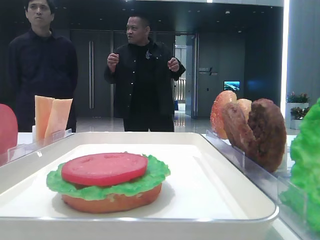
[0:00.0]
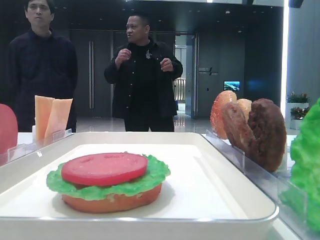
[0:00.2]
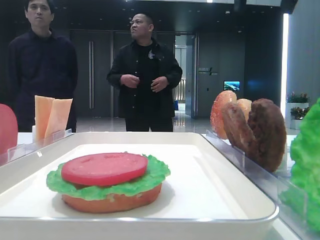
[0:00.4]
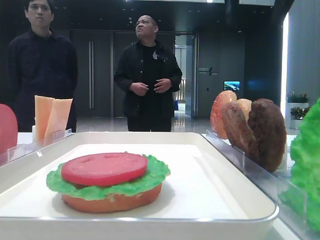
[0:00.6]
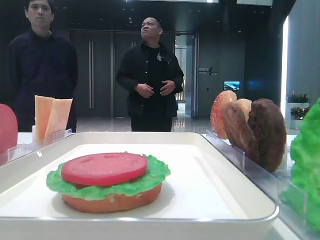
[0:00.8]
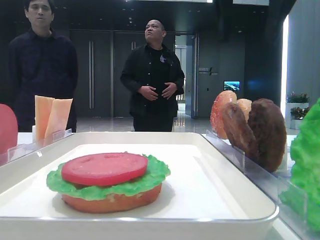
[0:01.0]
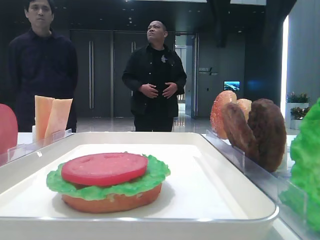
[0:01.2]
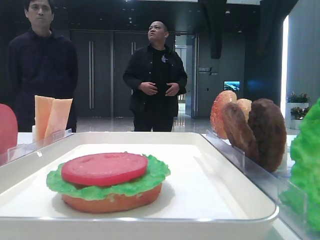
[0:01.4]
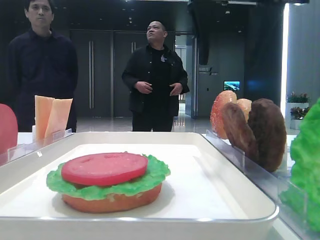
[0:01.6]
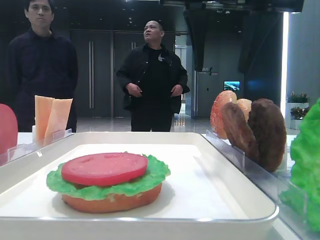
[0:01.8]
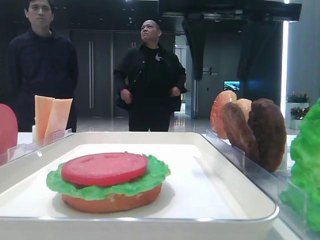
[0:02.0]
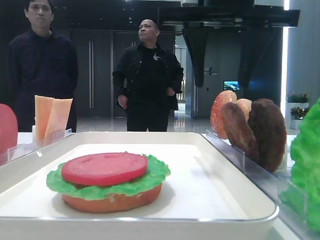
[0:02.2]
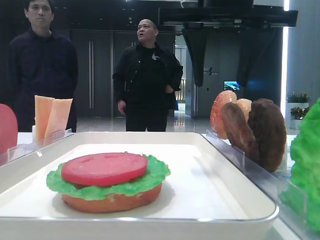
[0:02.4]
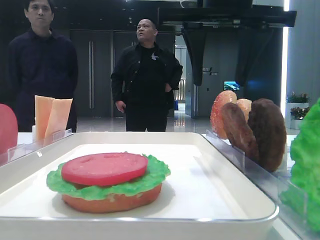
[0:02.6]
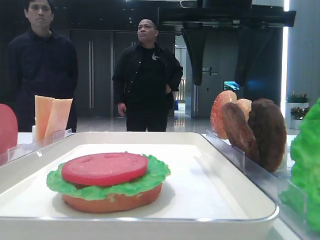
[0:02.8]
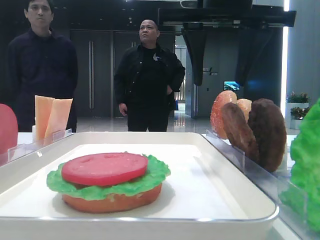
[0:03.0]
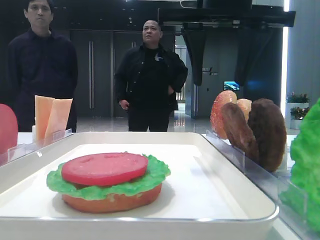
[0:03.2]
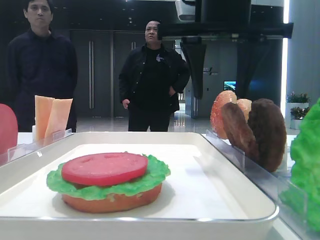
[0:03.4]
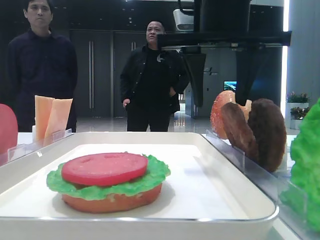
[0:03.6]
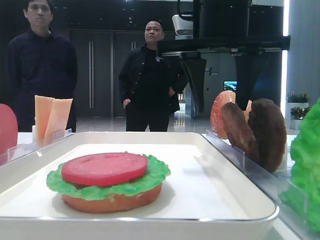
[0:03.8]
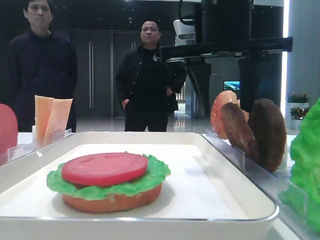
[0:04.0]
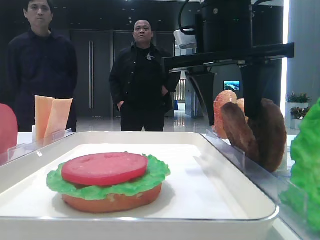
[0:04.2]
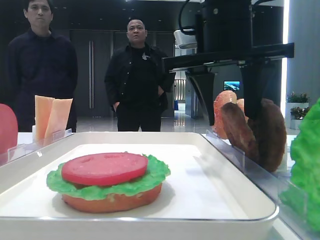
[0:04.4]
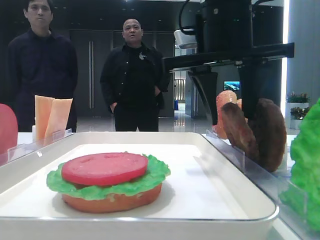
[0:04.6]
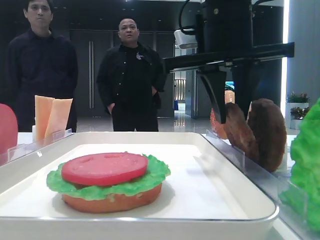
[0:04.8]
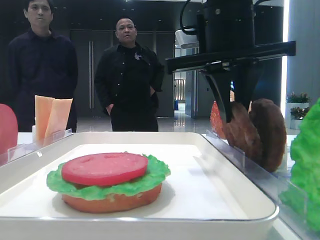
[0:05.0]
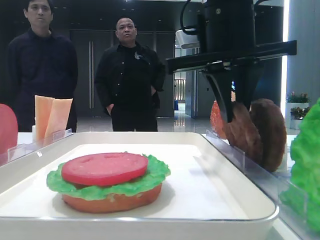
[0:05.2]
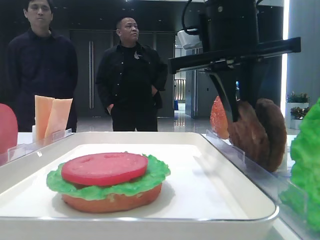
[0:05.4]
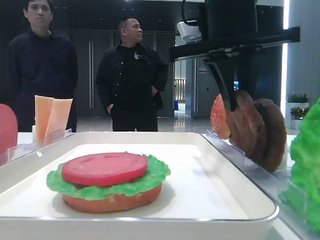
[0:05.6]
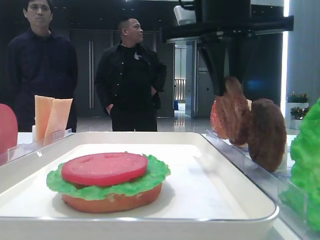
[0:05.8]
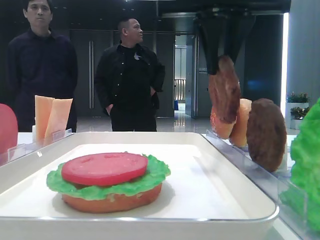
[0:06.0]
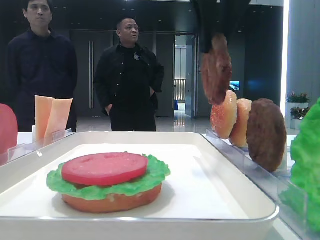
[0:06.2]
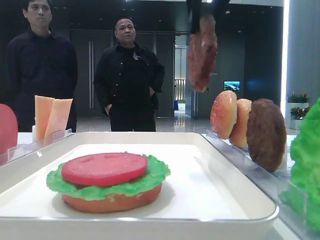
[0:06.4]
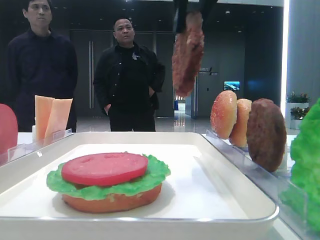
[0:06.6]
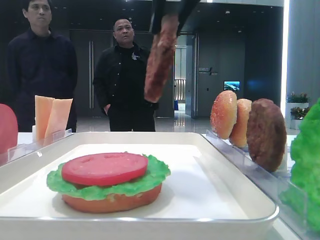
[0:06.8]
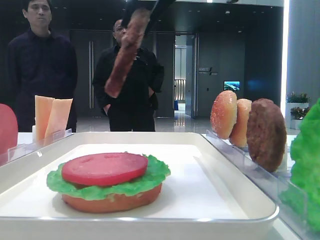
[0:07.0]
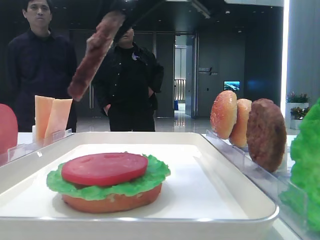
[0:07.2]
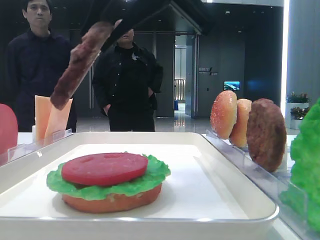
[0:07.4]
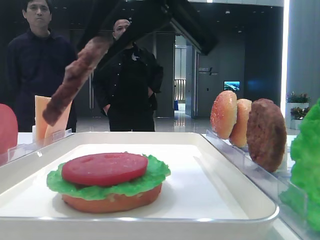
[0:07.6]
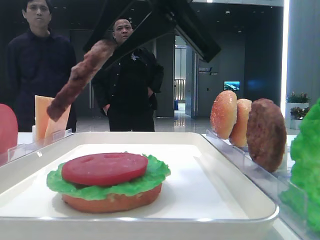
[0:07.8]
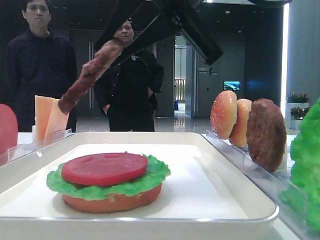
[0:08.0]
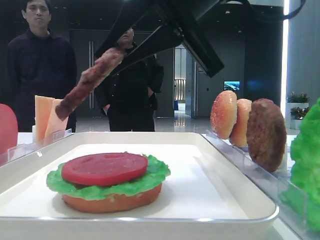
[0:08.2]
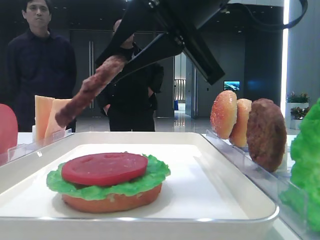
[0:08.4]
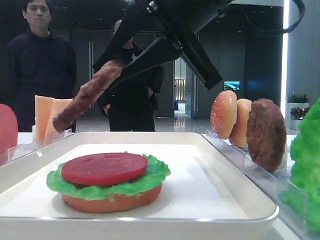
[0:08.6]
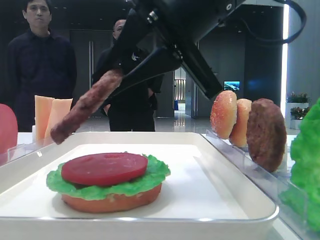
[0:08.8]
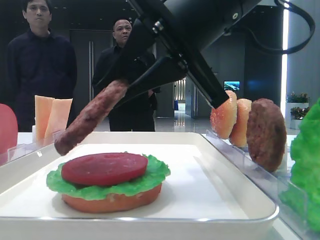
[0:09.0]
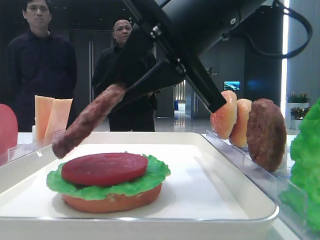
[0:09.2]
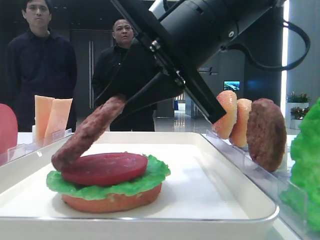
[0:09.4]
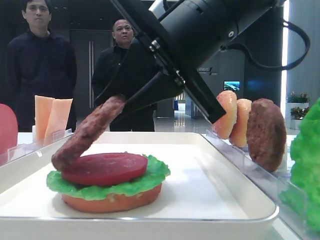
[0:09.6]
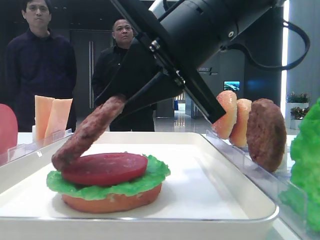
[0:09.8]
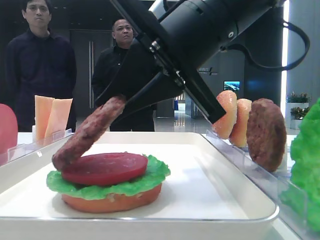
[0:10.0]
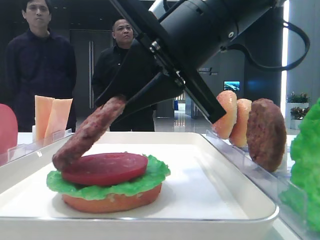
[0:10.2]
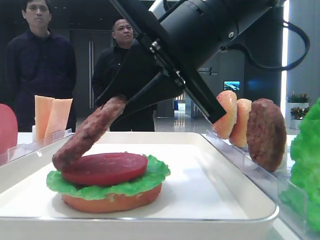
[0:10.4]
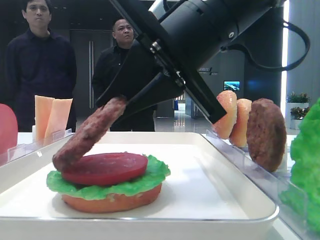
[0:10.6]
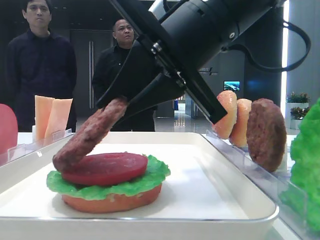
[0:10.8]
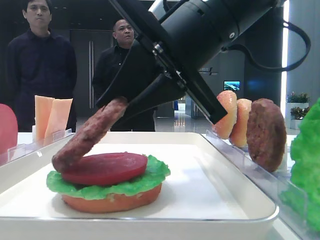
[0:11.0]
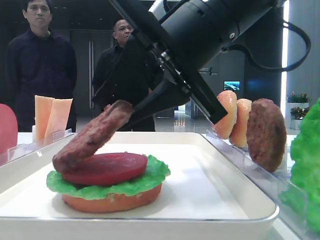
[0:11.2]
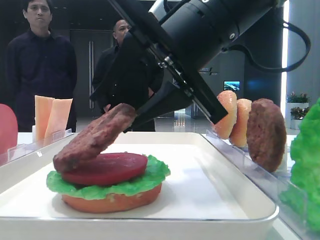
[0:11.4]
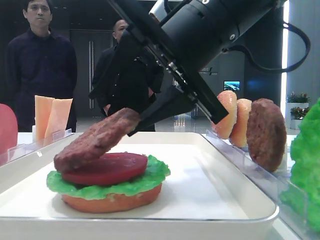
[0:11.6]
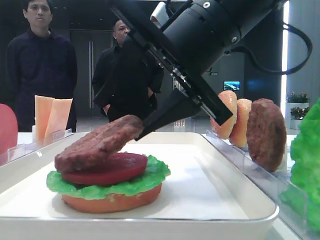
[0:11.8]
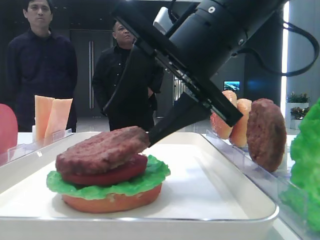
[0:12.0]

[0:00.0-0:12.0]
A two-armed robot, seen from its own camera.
Step, 0:00.0 to 0:04.8: Grab the patty with the right hand.
Step, 0:05.0 to 0:12.0: Place the patty on the tomato slice with the right hand.
0:00.0 to 0:01.6: The right gripper goes about 10 cm downward and to the left.
0:01.6 to 0:03.0: The grippers make only small movements.
0:03.0 to 0:04.4: The grippers move only a little.
0:04.4 to 0:06.0: The right gripper goes some 5 cm upward, and closes up.
0:06.0 to 0:07.6: The right gripper heads backward, covering about 10 cm.
0:07.6 to 0:09.0: The right gripper shifts by roughly 5 cm.
0:09.0 to 0:10.4: There are only small adjustments of the grippers.
0:10.4 to 0:12.0: The right gripper opens.

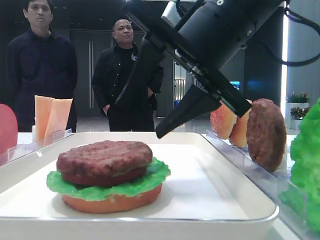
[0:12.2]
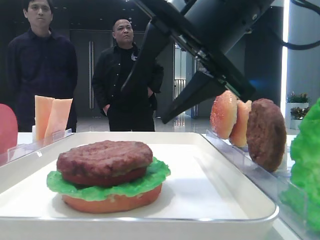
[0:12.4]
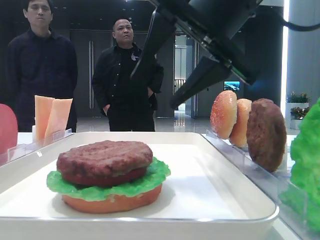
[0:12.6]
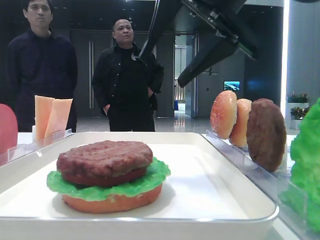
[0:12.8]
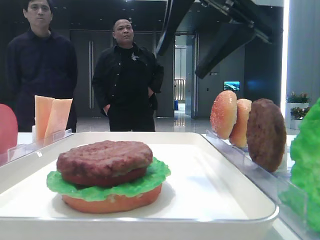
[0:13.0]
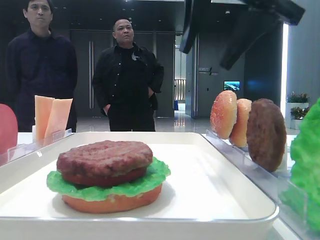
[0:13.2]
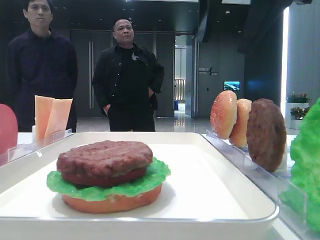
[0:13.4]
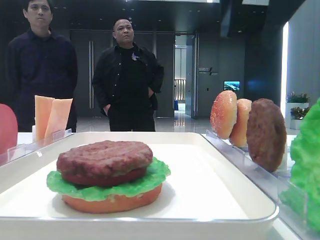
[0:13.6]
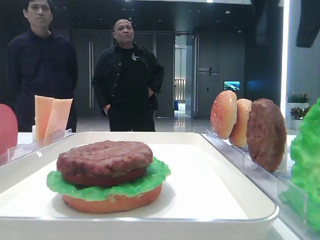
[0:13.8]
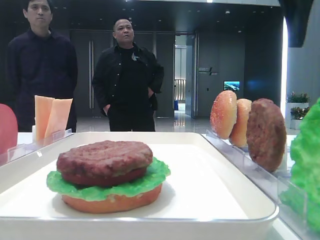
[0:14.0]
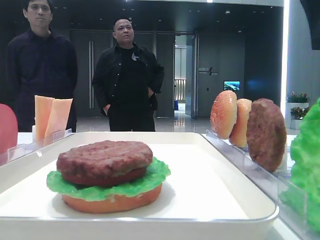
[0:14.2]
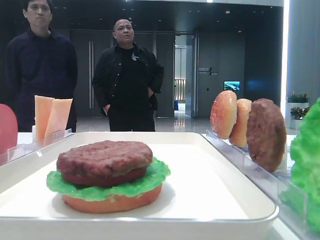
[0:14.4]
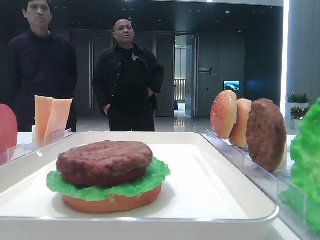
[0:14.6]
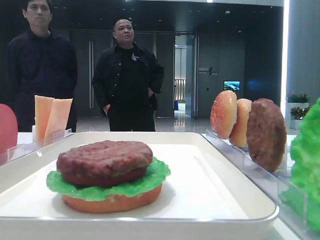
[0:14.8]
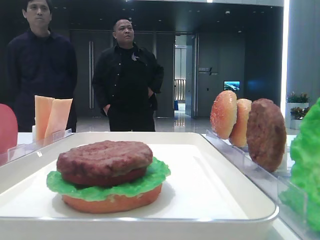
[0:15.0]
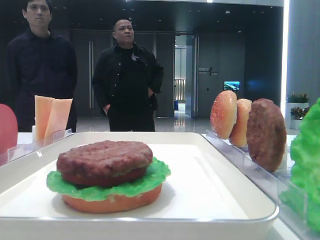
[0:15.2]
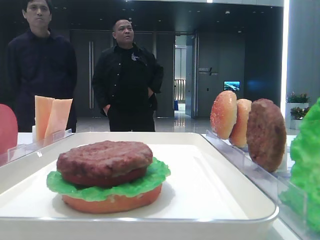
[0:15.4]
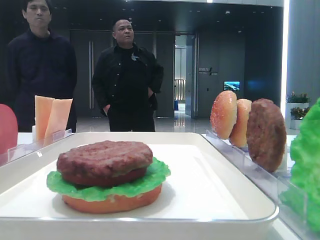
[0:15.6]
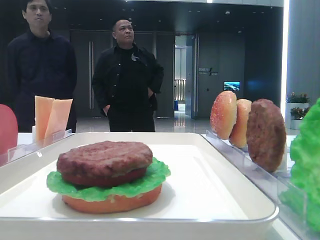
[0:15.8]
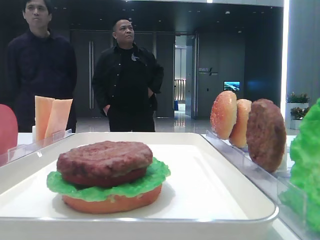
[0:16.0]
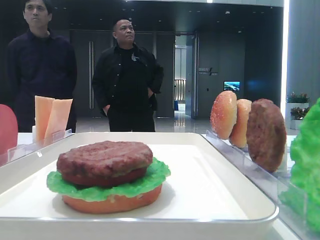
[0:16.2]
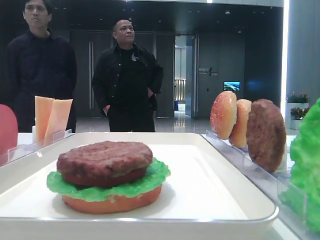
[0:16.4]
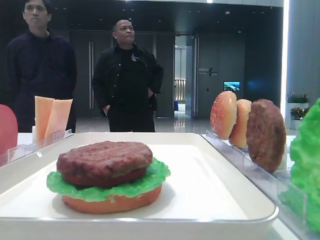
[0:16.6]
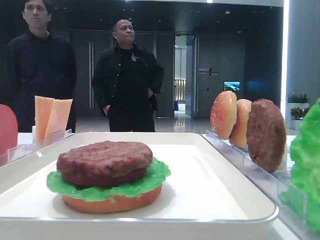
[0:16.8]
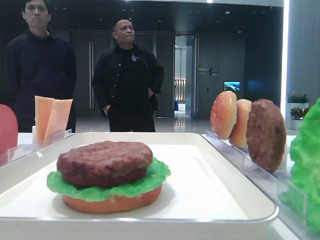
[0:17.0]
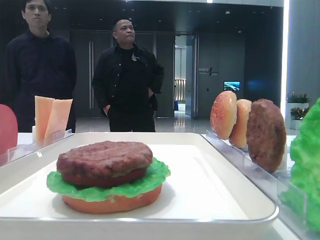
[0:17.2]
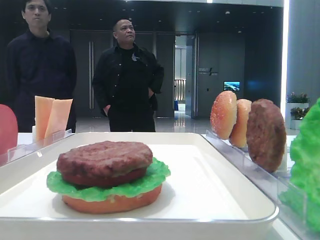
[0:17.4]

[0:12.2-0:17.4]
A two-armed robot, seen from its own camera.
0:12.2 to 0:14.0: The right gripper goes some 15 cm upward and to the right.
0:14.0 to 0:15.6: The right gripper travels backward and to the right by some 20 cm.

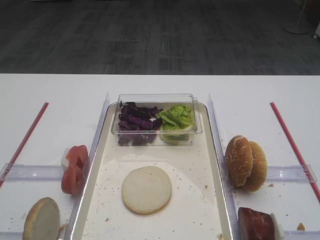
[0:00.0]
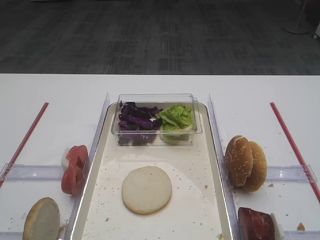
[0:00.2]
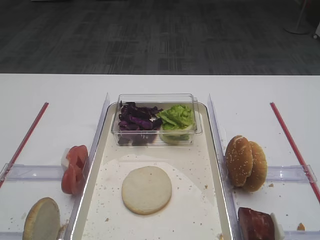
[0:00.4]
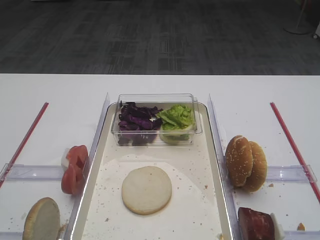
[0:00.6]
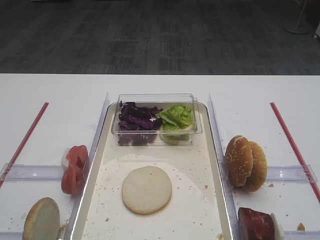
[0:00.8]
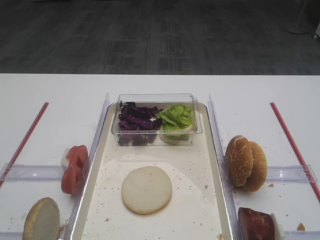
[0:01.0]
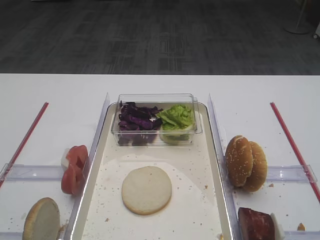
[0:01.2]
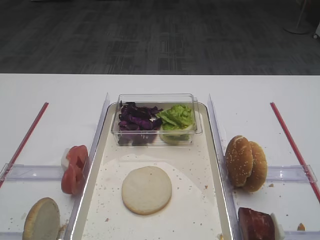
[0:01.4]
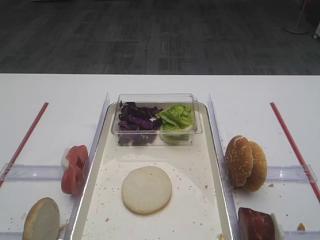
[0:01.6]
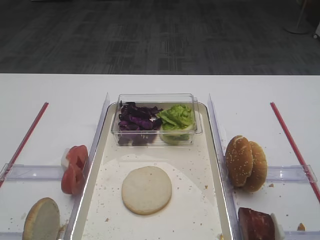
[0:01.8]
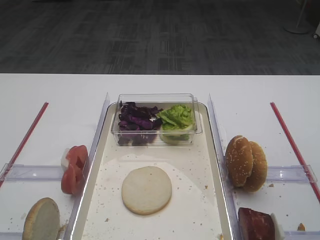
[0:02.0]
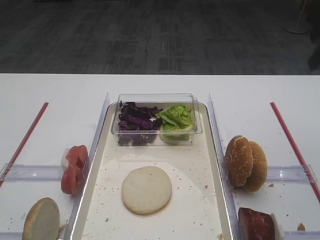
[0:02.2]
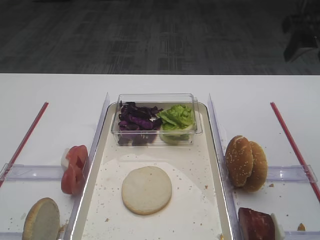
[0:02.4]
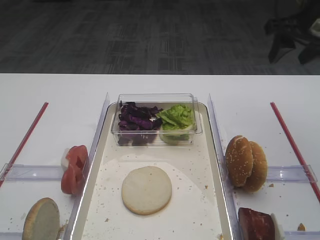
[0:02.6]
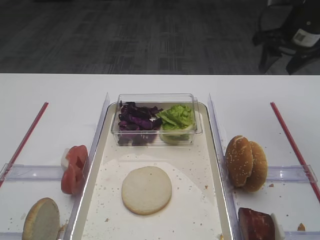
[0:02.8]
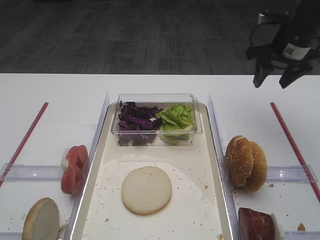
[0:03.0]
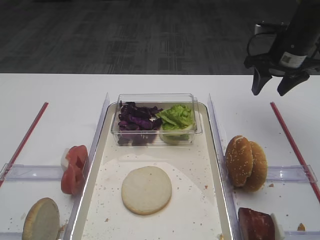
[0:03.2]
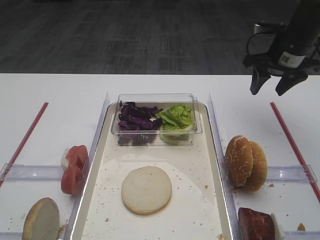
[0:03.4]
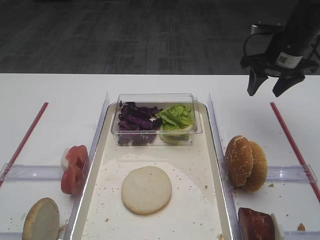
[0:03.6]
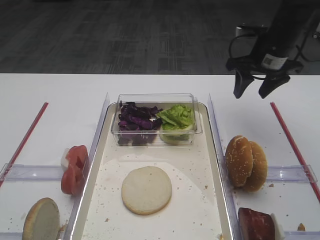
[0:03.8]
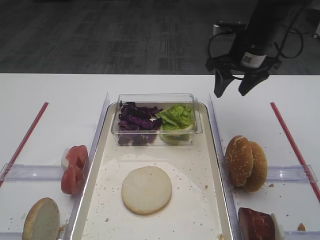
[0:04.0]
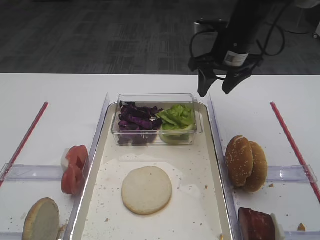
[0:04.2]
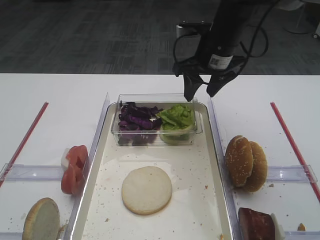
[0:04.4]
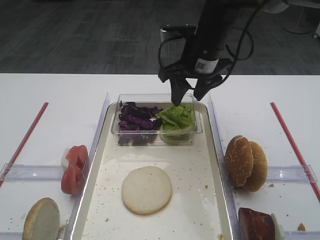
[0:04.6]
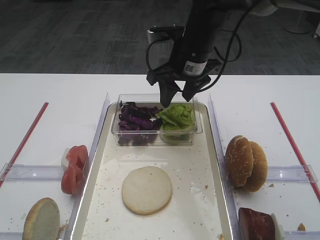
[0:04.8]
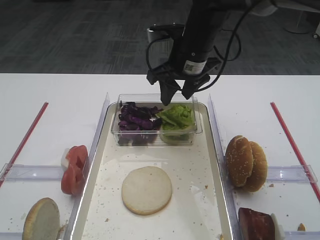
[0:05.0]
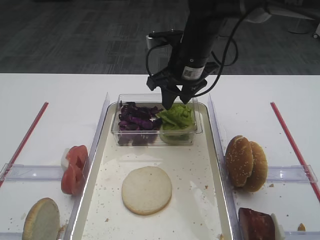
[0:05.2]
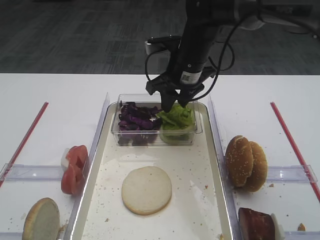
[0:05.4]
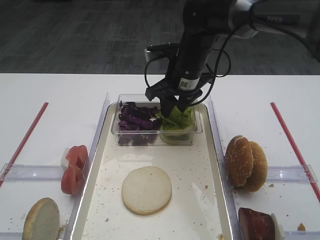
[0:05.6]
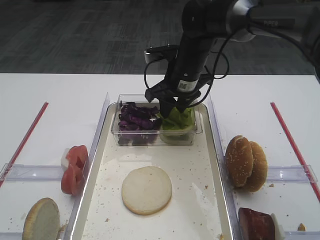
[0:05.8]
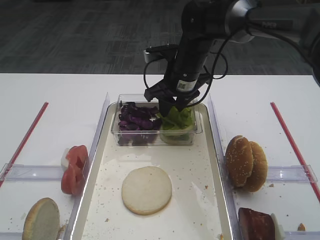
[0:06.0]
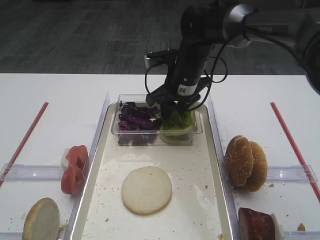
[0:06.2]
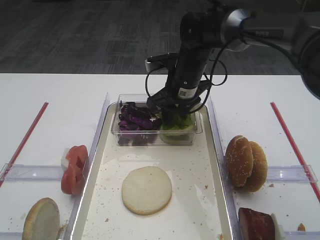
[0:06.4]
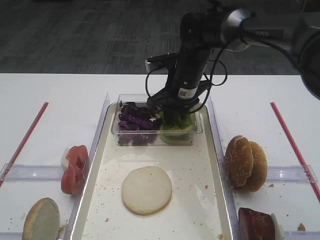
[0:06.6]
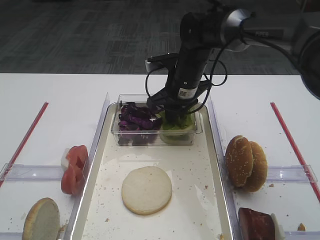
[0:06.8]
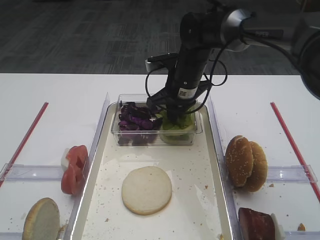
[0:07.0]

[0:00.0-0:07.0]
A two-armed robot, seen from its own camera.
0:01.4 to 0:02.8: The right gripper moves forward, some 40 cm.
0:02.8 to 0:04.2: The right gripper travels to the left by about 10 cm.
0:04.2 to 0:05.6: The right gripper heads to the left, covering approximately 10 cm.
0:05.6 to 0:07.0: The right gripper closes its fingers.
